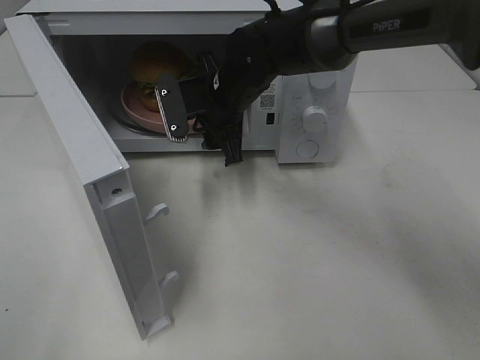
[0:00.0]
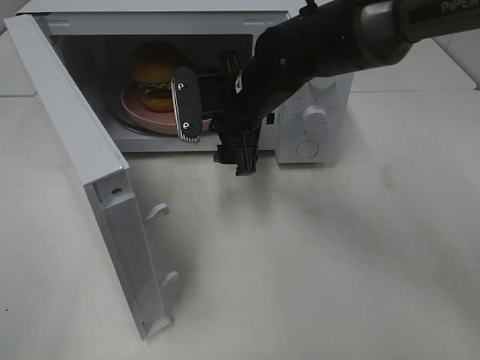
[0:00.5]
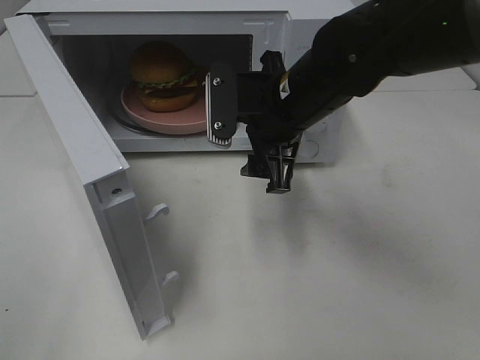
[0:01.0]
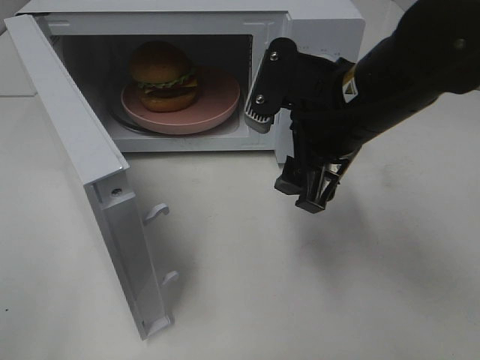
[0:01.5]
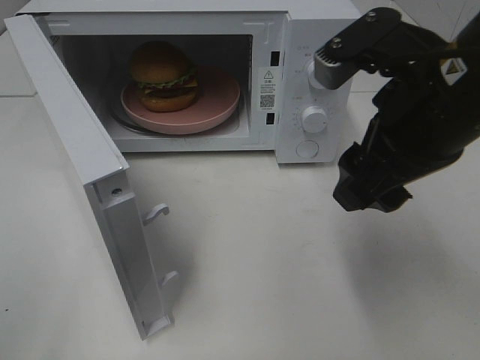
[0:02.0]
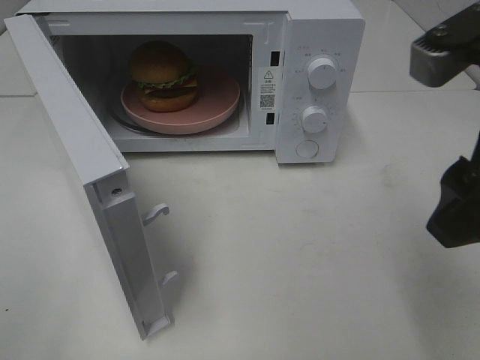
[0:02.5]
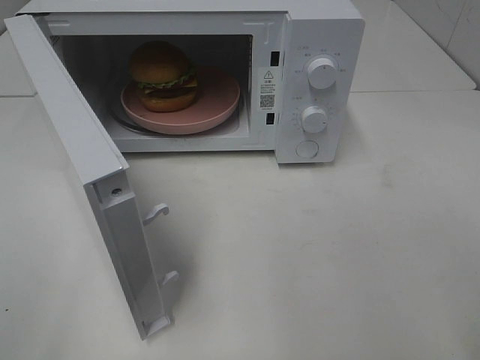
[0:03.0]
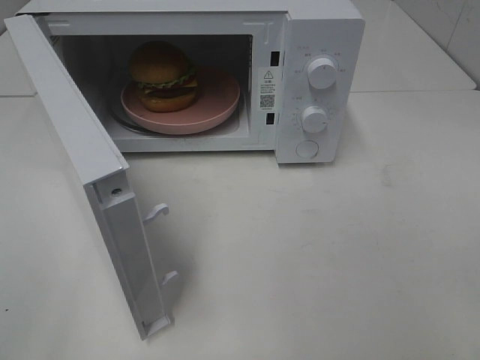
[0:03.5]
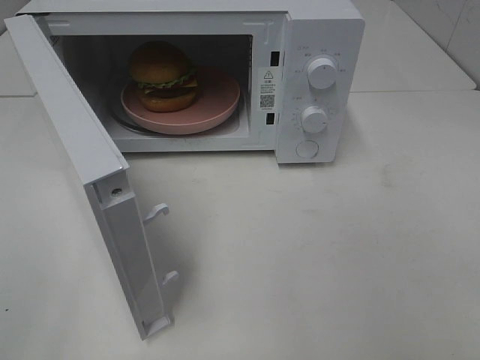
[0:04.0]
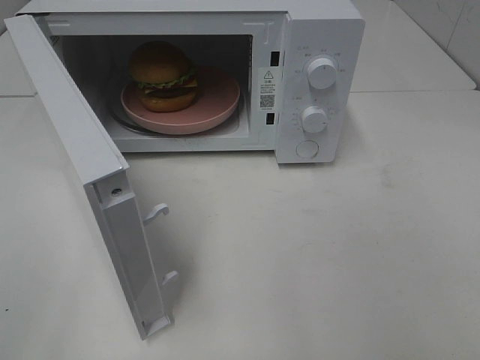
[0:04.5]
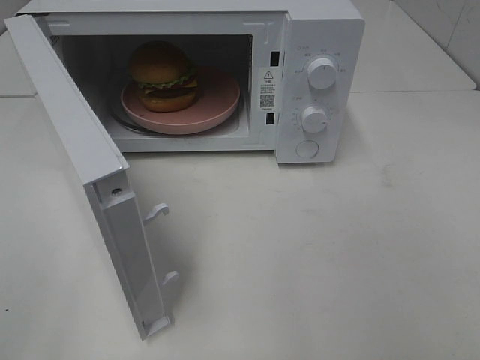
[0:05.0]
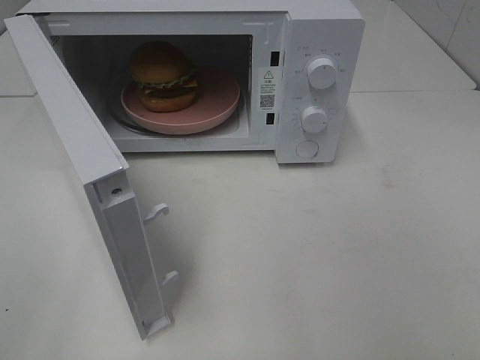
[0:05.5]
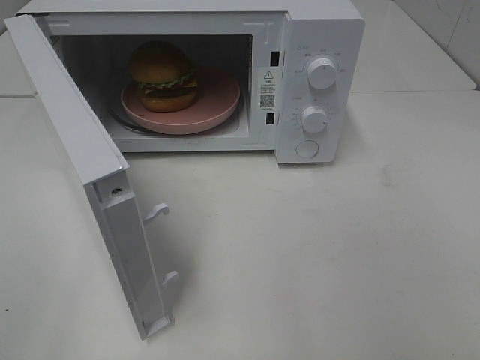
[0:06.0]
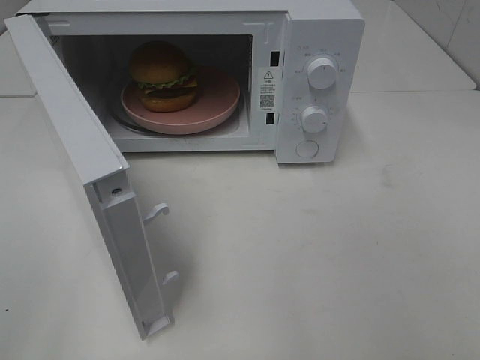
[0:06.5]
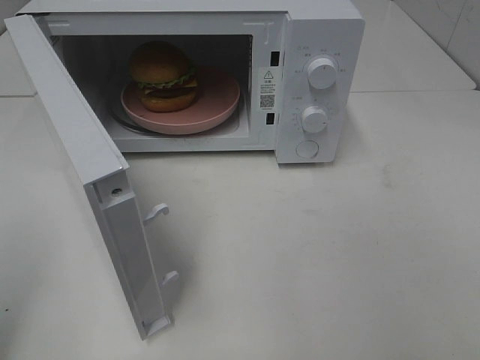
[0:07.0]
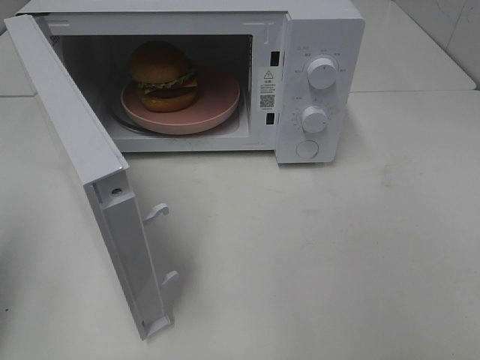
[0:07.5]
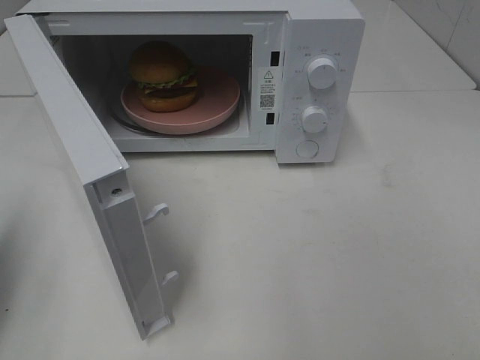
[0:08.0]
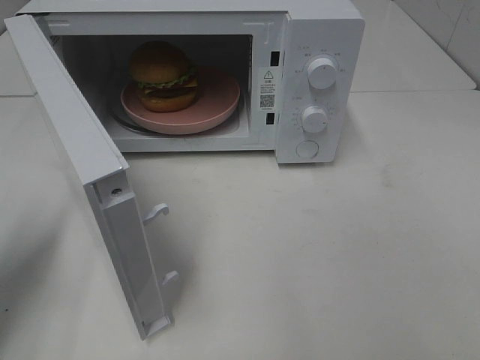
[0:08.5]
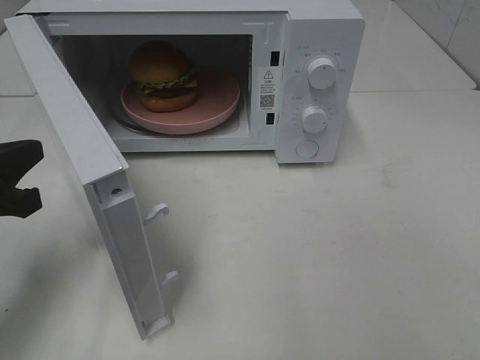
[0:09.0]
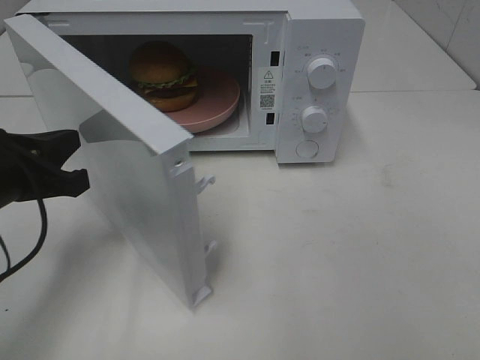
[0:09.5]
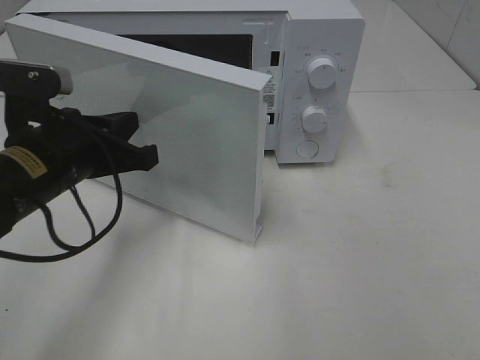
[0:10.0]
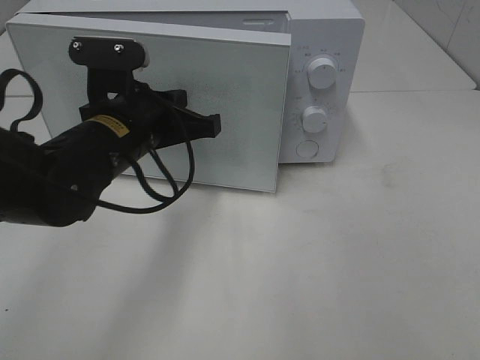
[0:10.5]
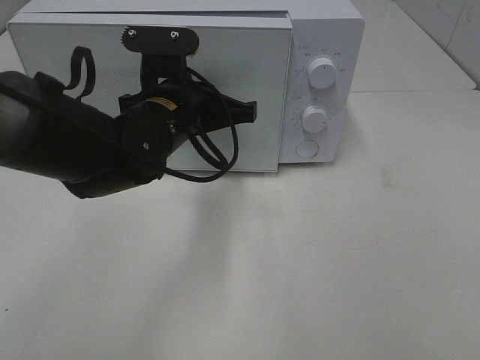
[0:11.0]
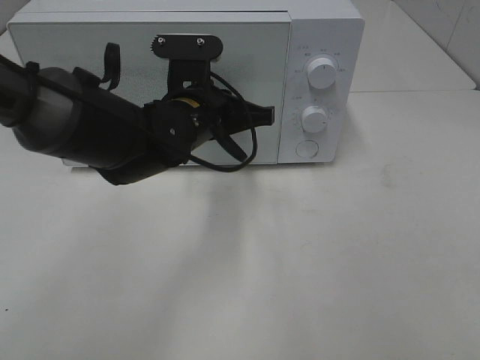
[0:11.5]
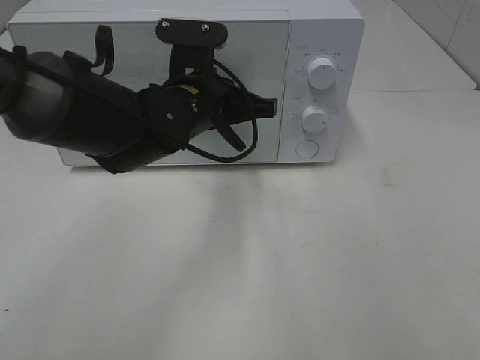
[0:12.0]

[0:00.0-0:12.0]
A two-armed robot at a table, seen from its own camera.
Task of the whole recording: Heat the burger.
0:00.0 to 0:02.0: The right gripper travels backward, to the right and upward by roughly 25 cm.
0:02.0 to 0:04.0: The right gripper travels backward and to the right by approximately 25 cm.
0:06.0 to 0:08.0: The left gripper travels forward by some 15 cm, and closes up.
0:08.0 to 0:10.0: The left gripper is displaced to the right and forward by about 20 cm.
0:10.0 to 0:12.0: The left gripper shifts roughly 15 cm to the right and forward.

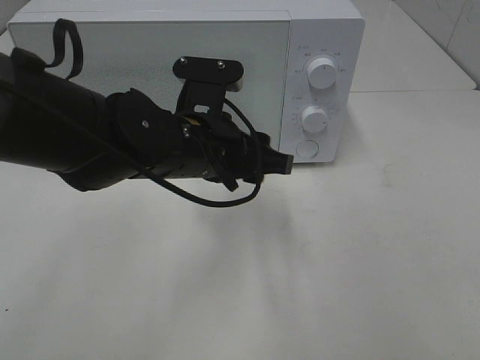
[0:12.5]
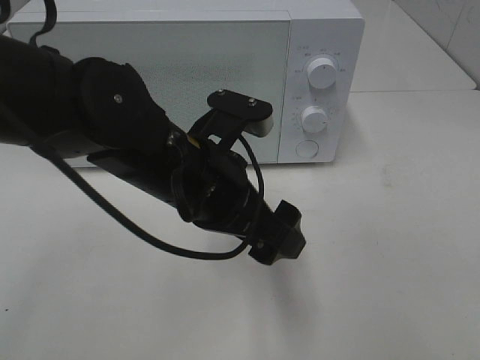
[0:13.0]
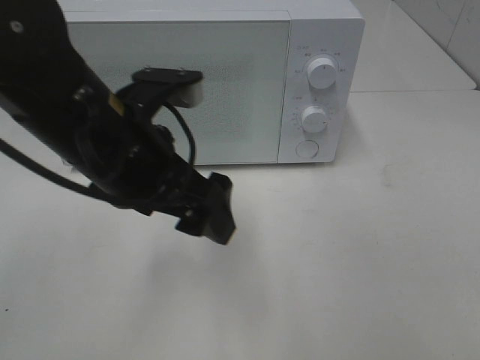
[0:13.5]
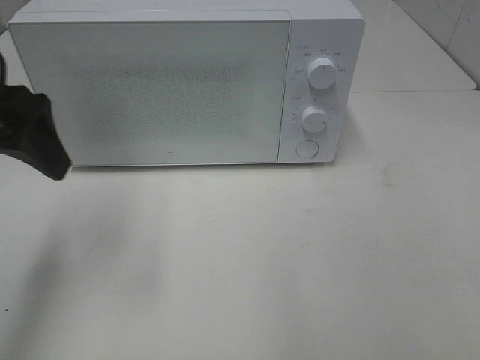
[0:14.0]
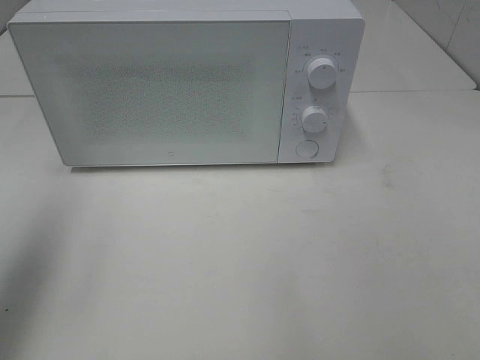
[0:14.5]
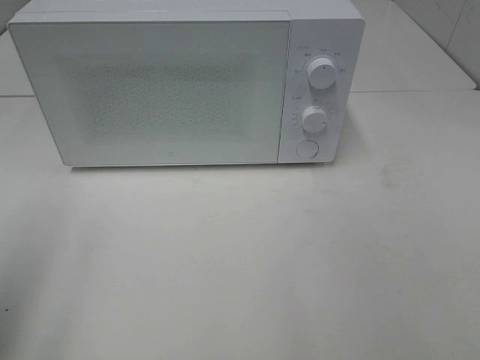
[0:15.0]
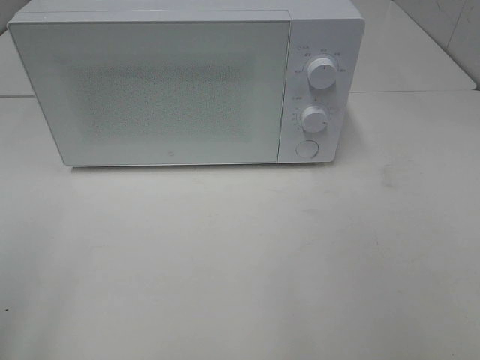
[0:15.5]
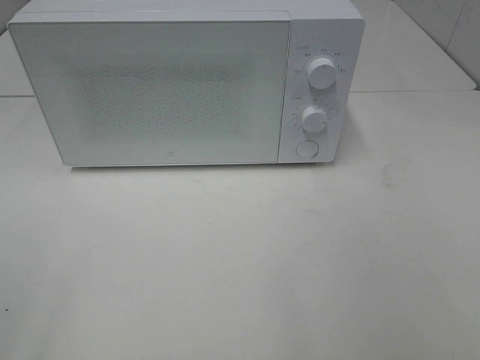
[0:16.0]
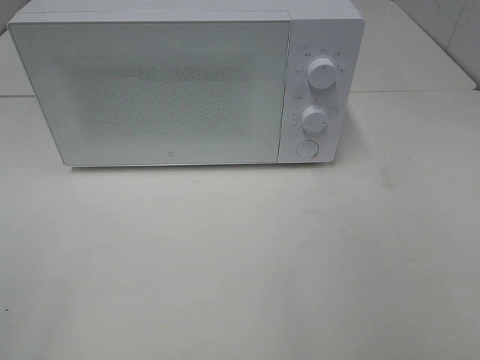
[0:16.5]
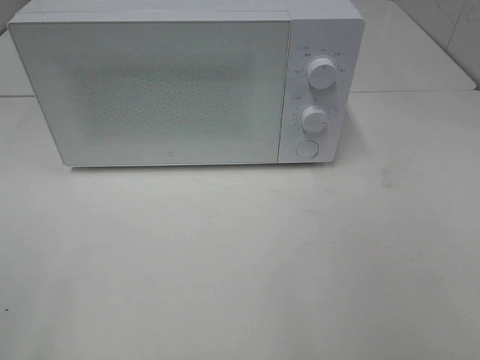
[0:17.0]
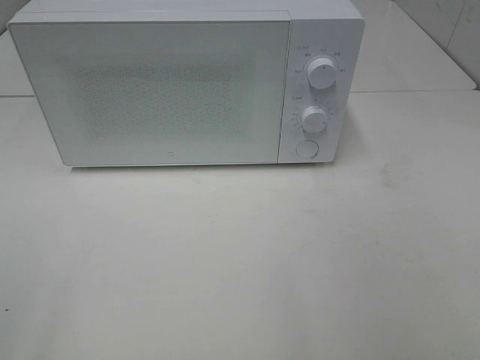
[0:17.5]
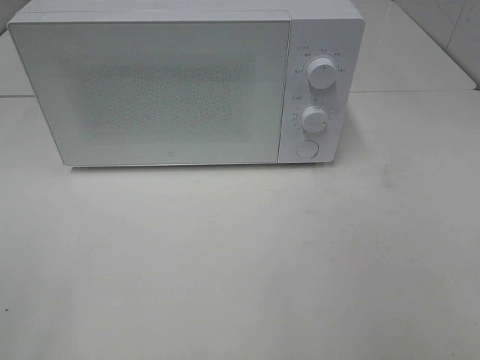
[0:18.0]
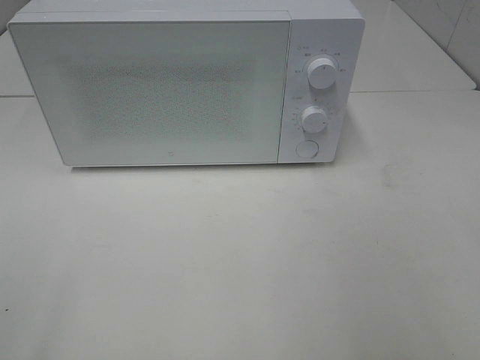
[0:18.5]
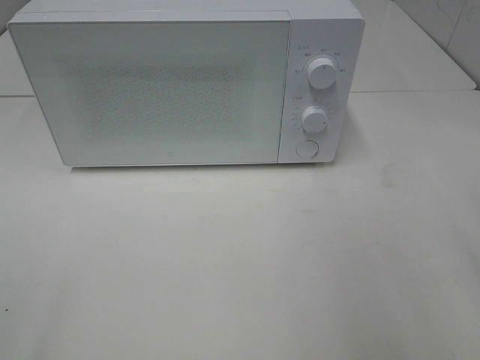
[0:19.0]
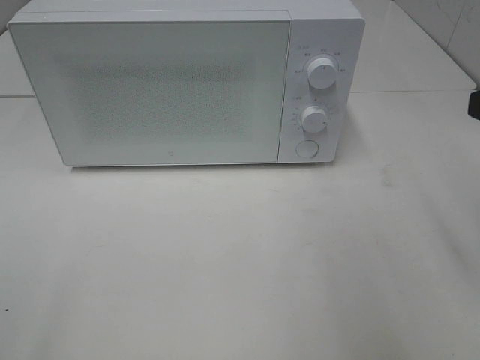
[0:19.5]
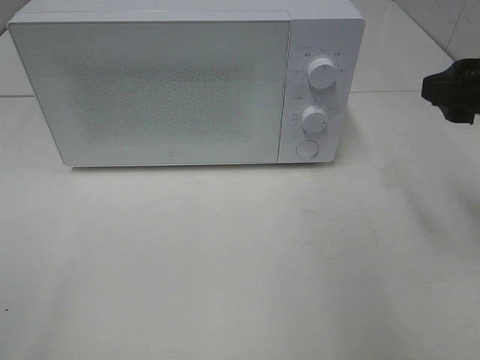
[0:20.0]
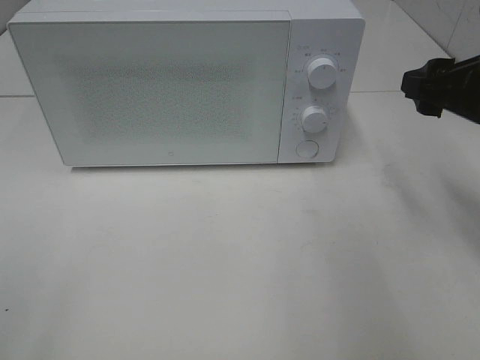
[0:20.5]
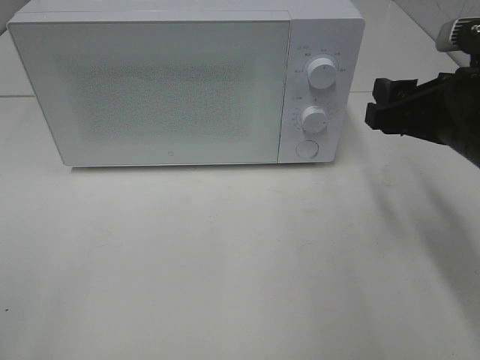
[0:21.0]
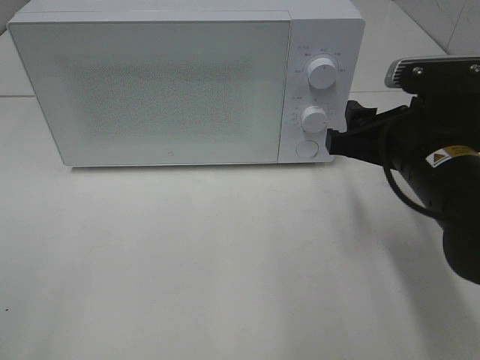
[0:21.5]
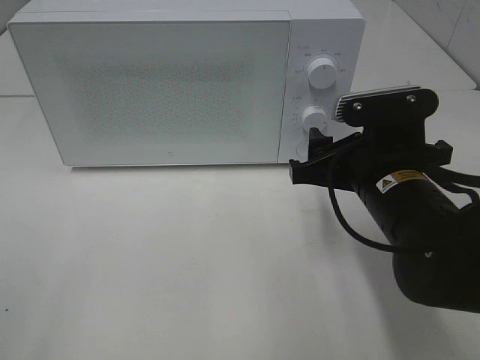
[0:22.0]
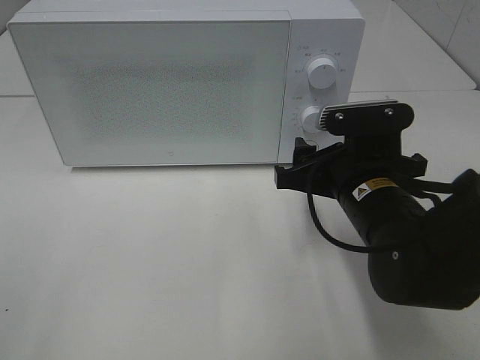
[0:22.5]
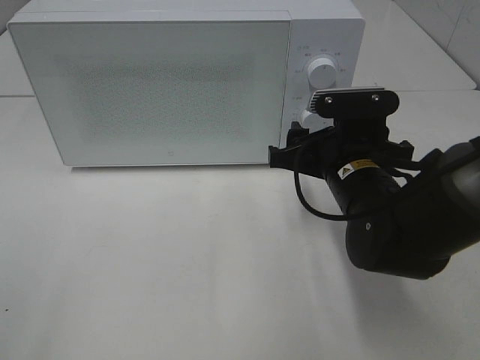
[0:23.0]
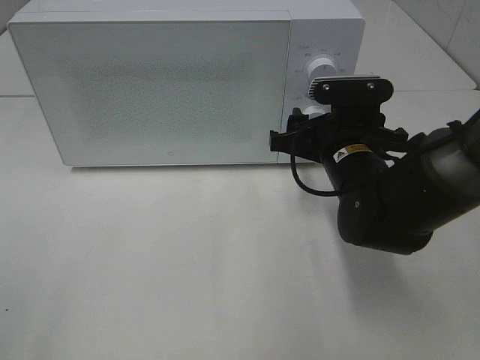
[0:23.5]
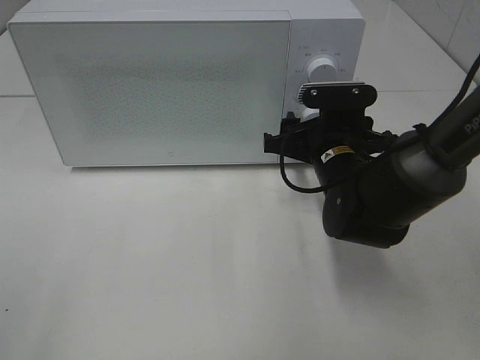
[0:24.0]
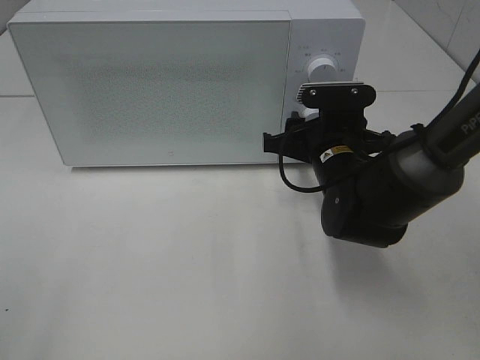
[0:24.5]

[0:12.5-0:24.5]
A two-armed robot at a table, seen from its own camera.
Task of the whole recording: Heat the burger.
0:12.5 to 0:14.5: The left gripper travels to the left and upward by about 30 cm, and opens up.
0:14.5 to 0:16.5: The left gripper moves backward, roughly 20 cm.
0:18.5 to 0:20.5: The right gripper goes about 20 cm forward.
0:20.5 to 0:22.5: The right gripper shifts roughly 15 cm to the left and downward.
0:22.5 to 0:24.5: The right gripper goes about 10 cm forward.

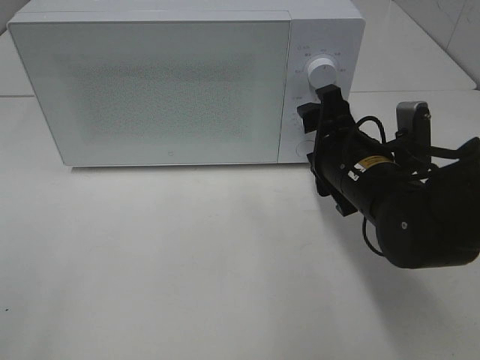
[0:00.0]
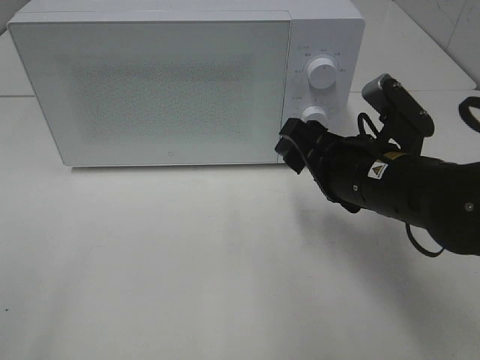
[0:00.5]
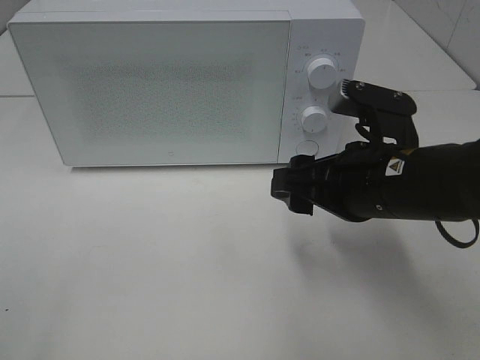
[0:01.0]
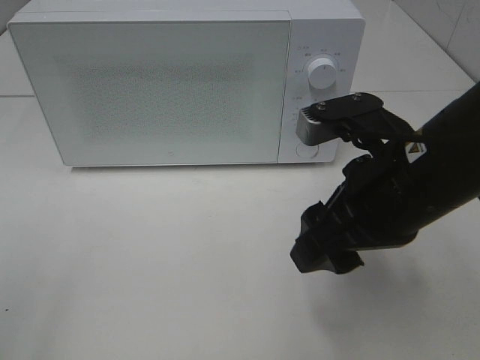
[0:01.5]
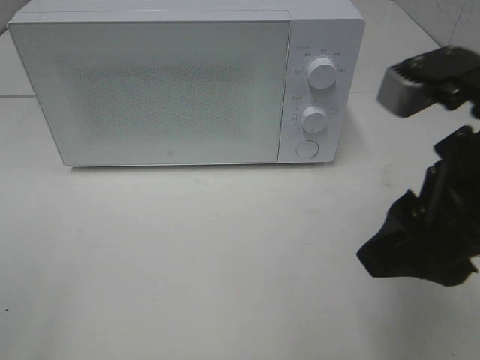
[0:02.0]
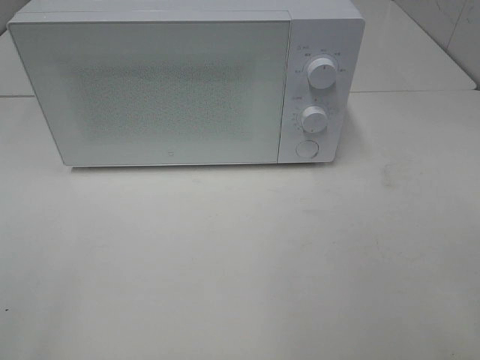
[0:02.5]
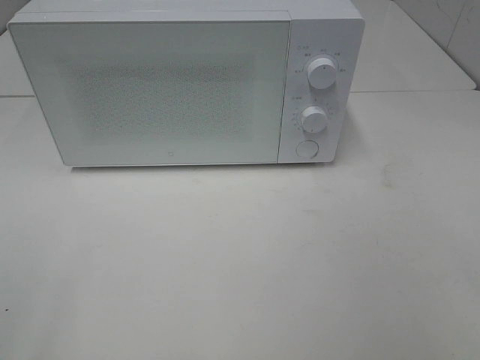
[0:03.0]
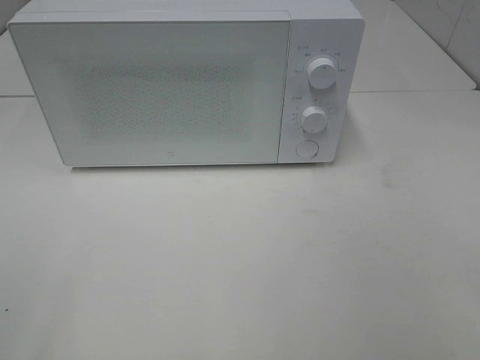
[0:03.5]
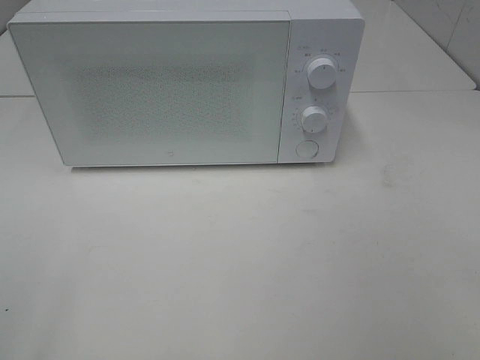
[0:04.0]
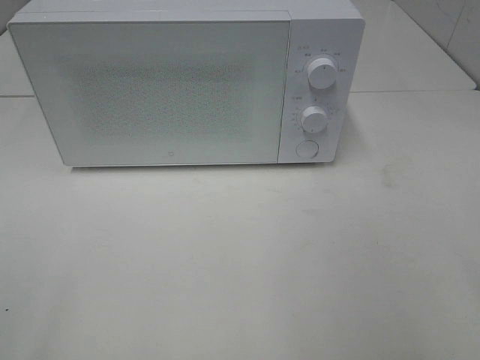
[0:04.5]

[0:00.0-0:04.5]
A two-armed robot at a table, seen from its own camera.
Task of the whole recording: Heat the burger.
0:00.0 to 0:02.0: The right gripper is displaced upward and backward by approximately 20 cm.
0:02.0 to 0:04.5: The right gripper travels to the right and backward by about 15 cm.
